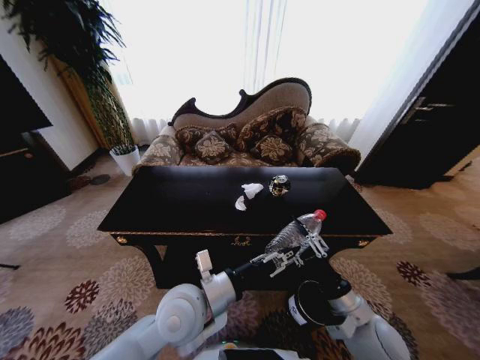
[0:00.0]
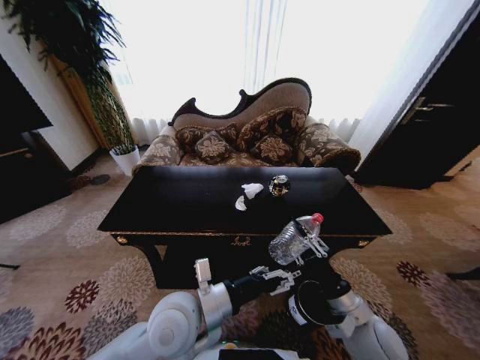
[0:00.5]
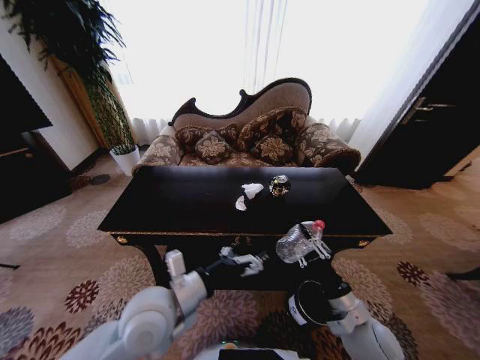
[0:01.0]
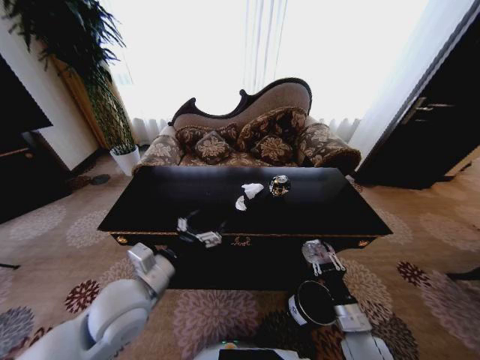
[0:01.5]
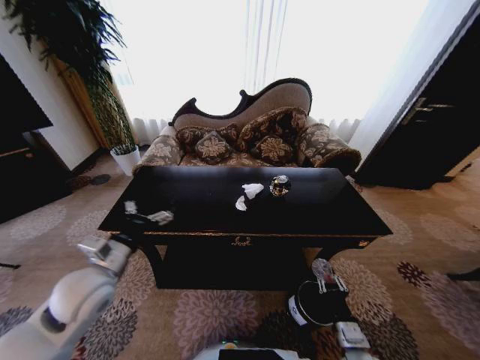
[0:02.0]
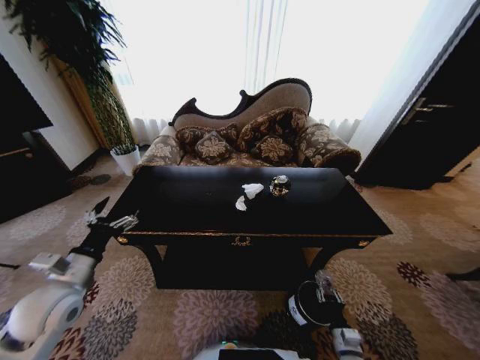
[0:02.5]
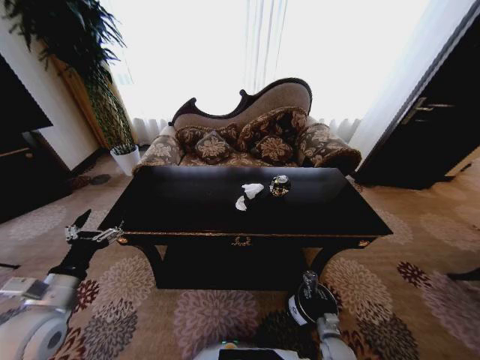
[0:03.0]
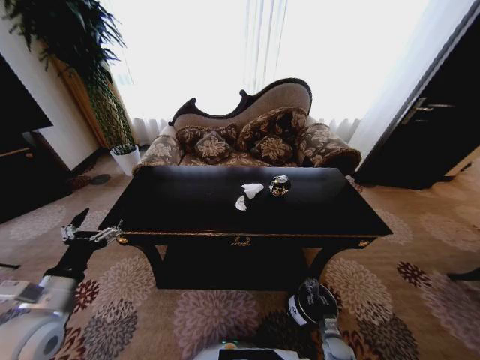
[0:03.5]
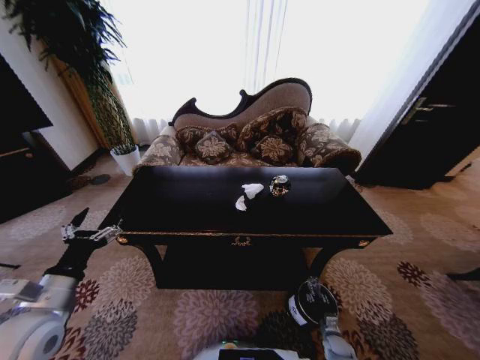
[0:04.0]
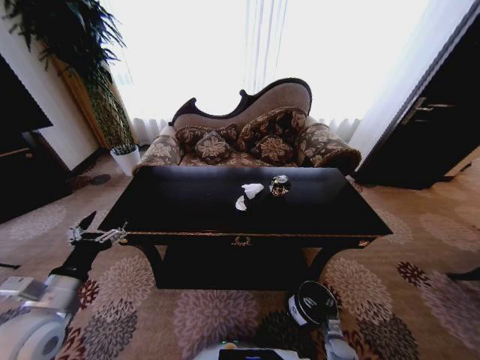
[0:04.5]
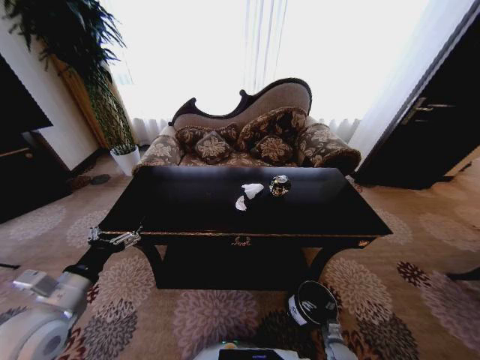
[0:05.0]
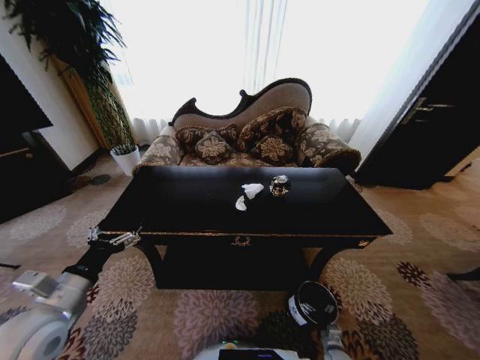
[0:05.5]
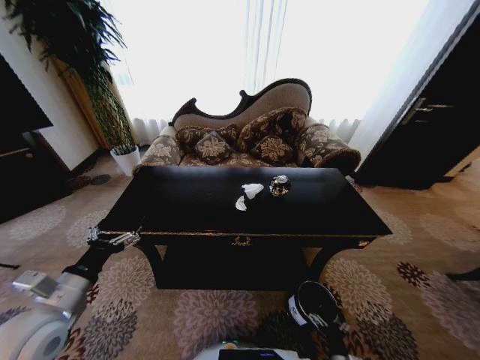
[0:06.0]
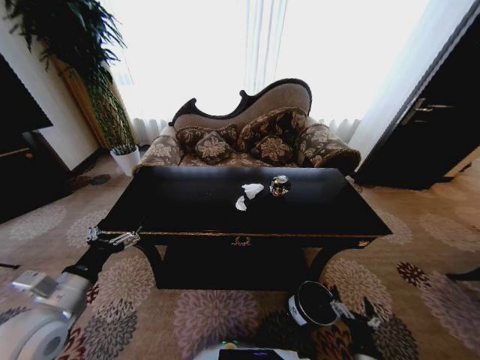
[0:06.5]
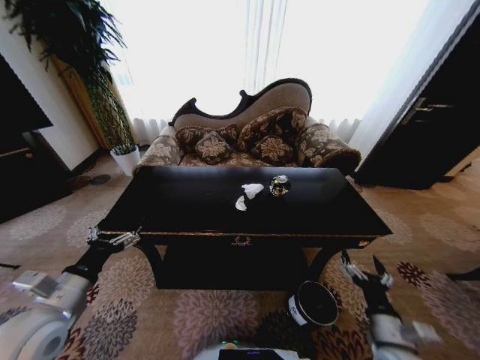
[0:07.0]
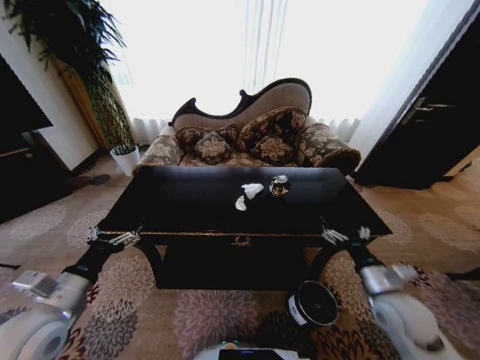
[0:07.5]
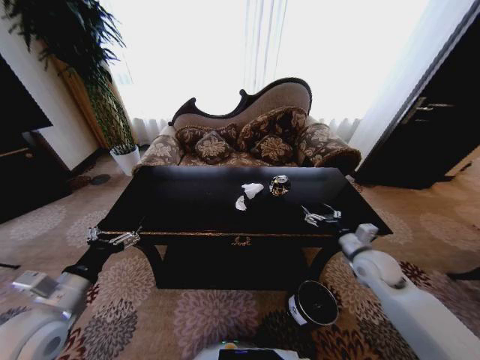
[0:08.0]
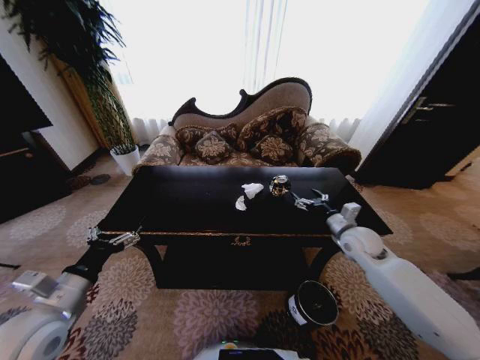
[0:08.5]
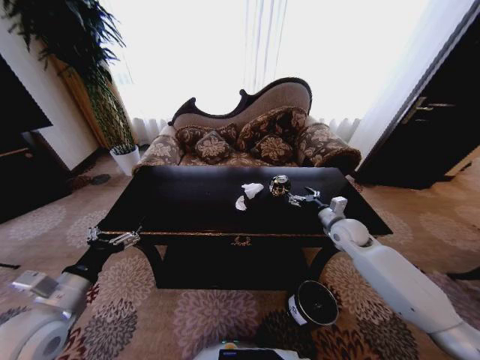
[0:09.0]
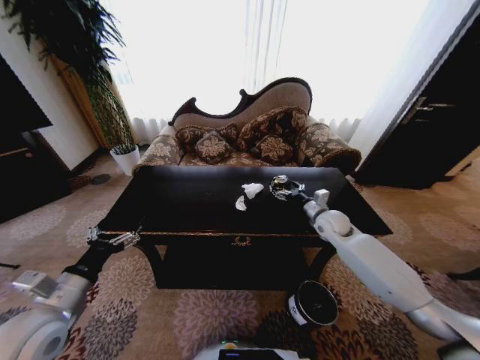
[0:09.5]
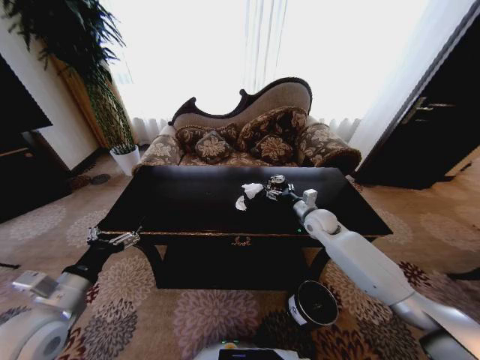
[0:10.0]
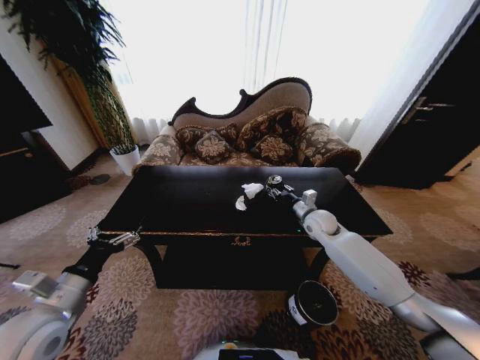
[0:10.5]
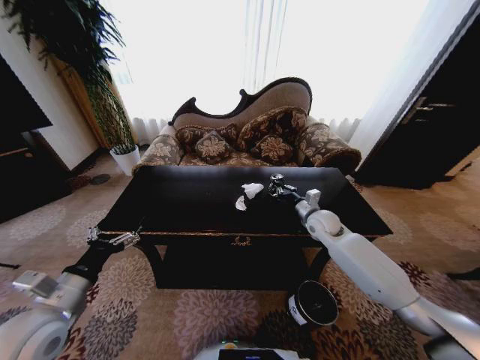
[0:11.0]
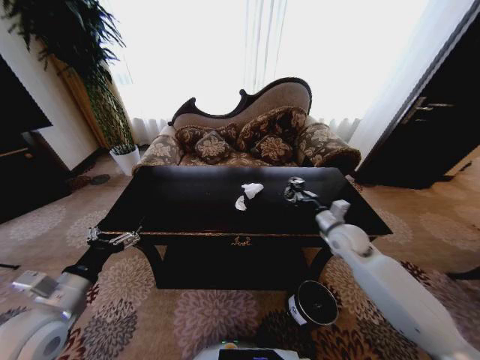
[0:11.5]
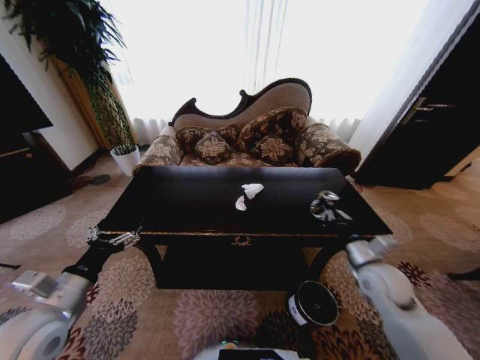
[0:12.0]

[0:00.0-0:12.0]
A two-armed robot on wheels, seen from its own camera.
Task of the whole recording: Move to the front of the table and place the trash on the table into the trash bin.
0:00.0 to 0:02.0: The right gripper goes approximately 15 cm downward; the left gripper heads to the left, covering some 20 cm, and opens its fingers.
0:02.0 to 0:04.0: The left gripper heads to the left and backward, covering some 10 cm. Meanwhile the right gripper goes about 20 cm downward.
0:04.0 to 0:06.0: The right gripper travels backward, upward and to the left by about 15 cm, and opens its fingers.
0:06.0 to 0:08.0: The right gripper shifts some 40 cm upward and forward.
0:08.0 to 0:10.0: The right gripper moves forward and to the left, roughly 20 cm.
0:10.0 to 0:12.0: The right gripper travels backward by about 20 cm, and closes its fingers.

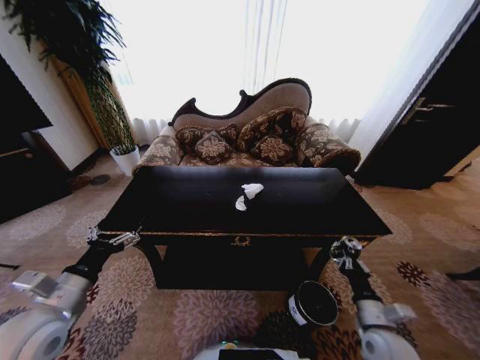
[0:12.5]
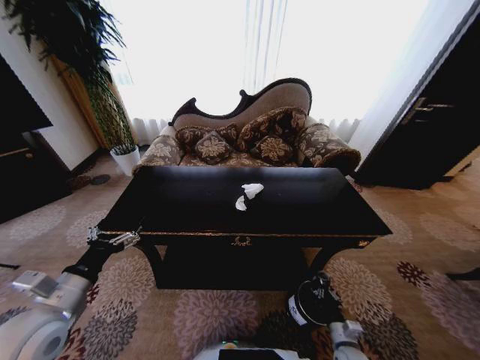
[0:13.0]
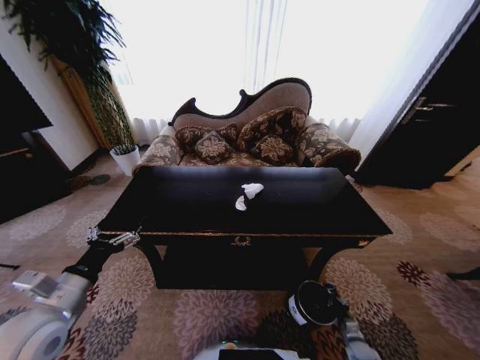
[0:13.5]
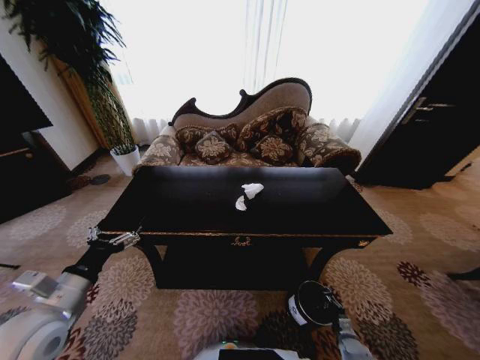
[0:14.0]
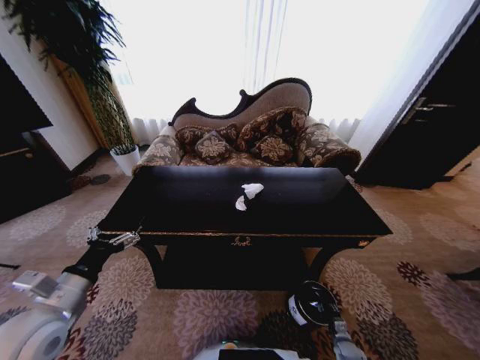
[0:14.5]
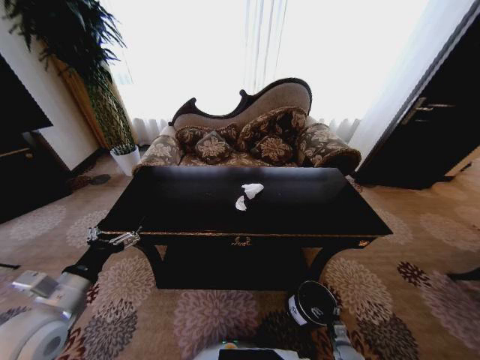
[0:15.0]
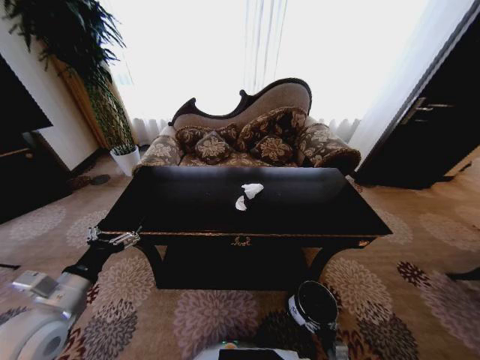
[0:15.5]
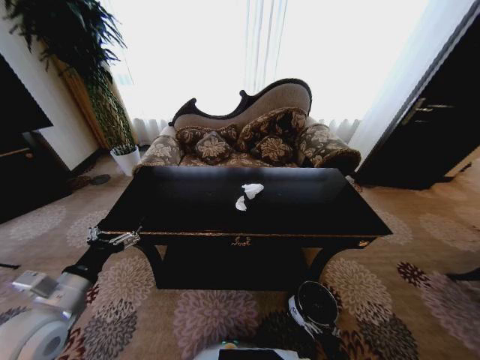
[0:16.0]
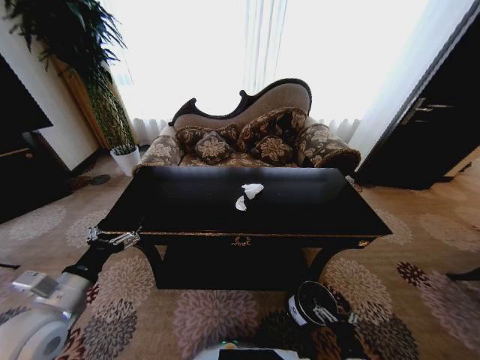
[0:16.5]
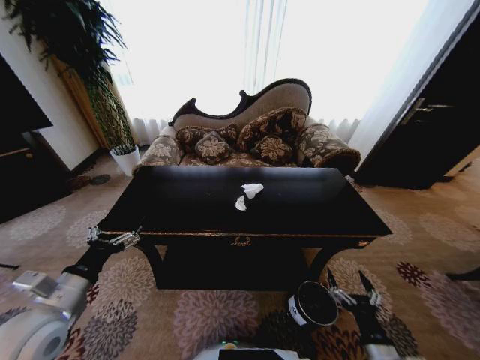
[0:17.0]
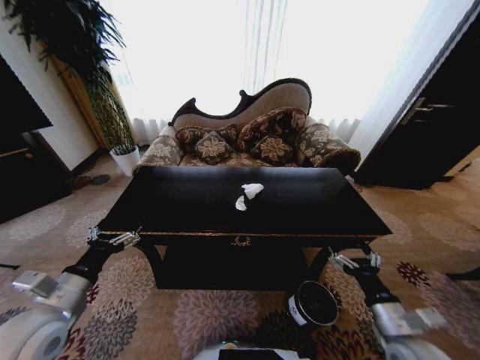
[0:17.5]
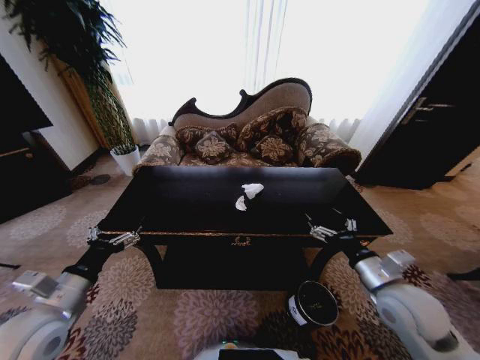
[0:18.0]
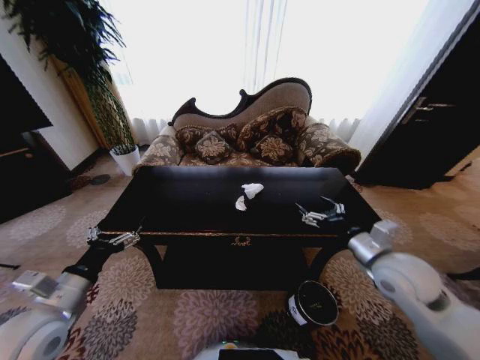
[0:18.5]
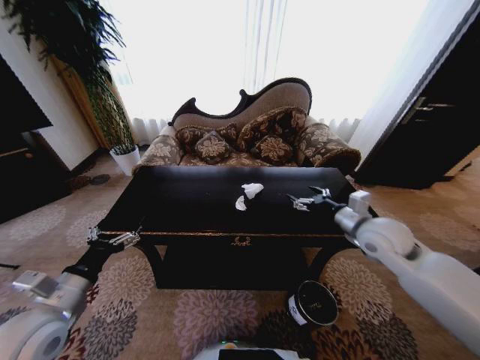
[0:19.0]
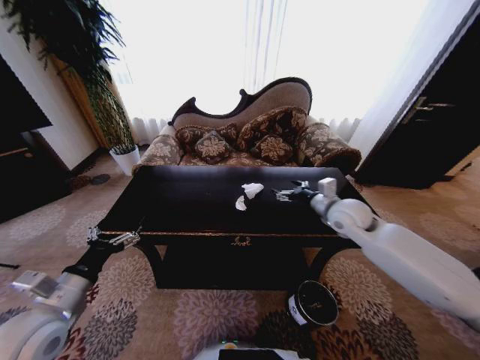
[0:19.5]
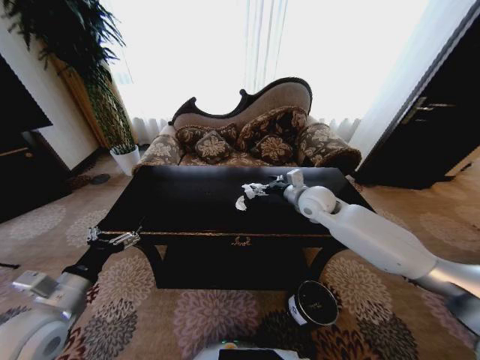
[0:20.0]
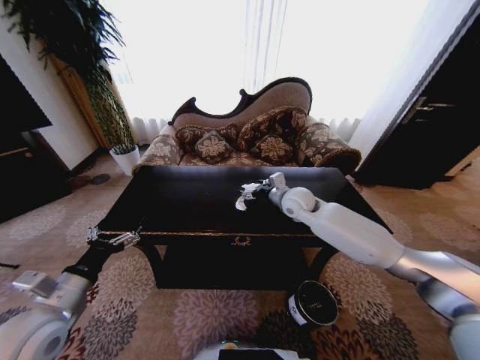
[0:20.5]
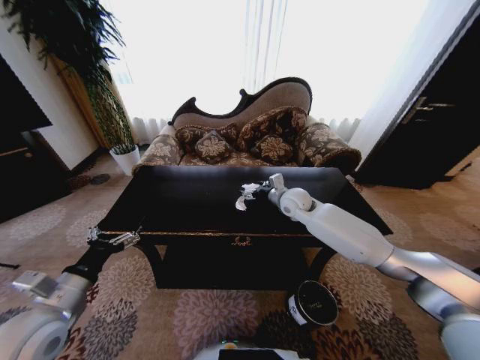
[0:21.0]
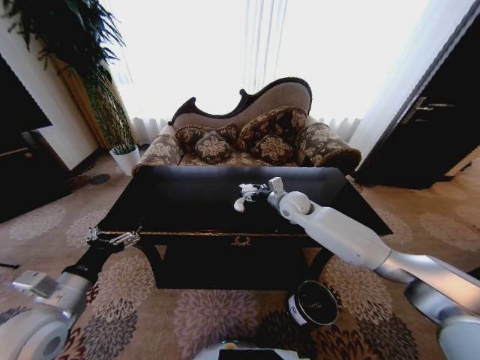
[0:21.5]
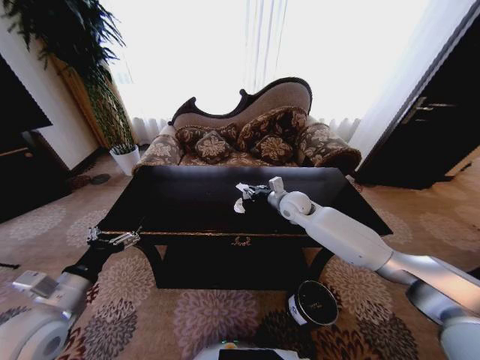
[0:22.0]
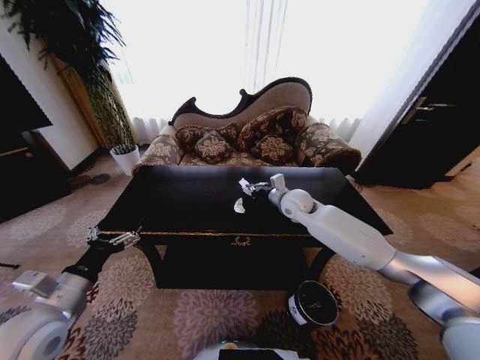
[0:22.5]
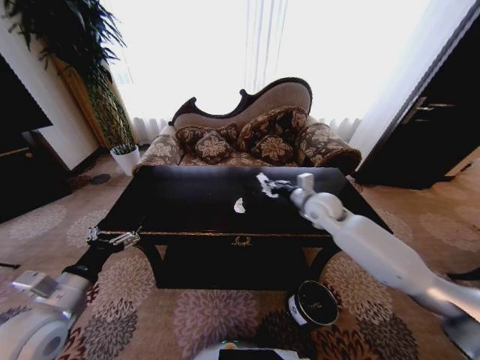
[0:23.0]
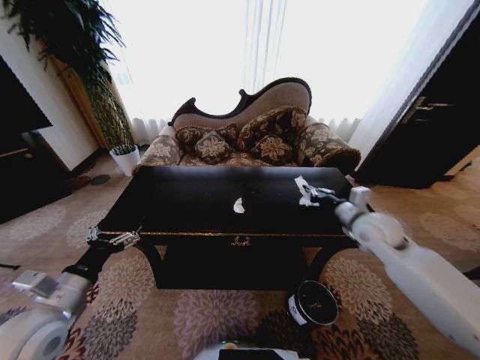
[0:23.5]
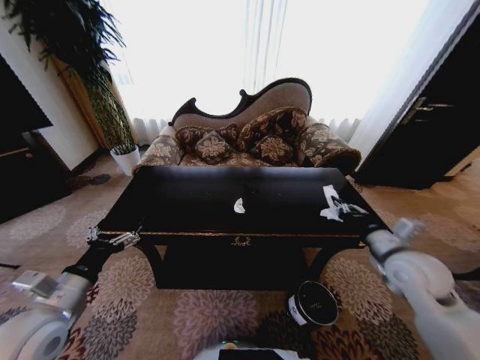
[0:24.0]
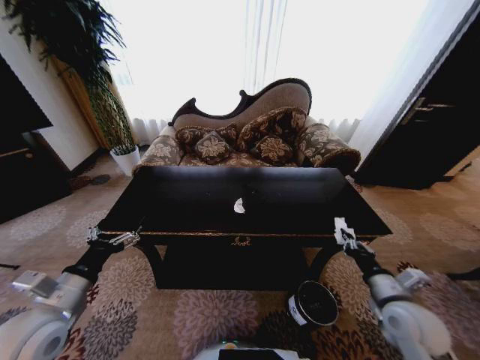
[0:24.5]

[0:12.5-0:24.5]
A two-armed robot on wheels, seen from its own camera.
Task of the whole recording: Move to the front of the table and place the trash on the table into the trash bin.
0:12.5 to 0:14.5: The right gripper travels downward by roughly 30 cm.
0:14.5 to 0:16.5: The right gripper goes approximately 25 cm upward, backward and to the left, and opens its fingers.
0:16.5 to 0:18.5: The right gripper shifts roughly 35 cm upward and forward.
0:18.5 to 0:20.5: The right gripper moves forward and to the left, roughly 25 cm.
0:20.5 to 0:22.5: The right gripper closes up.
0:22.5 to 0:24.5: The right gripper is displaced backward and to the right by some 35 cm.

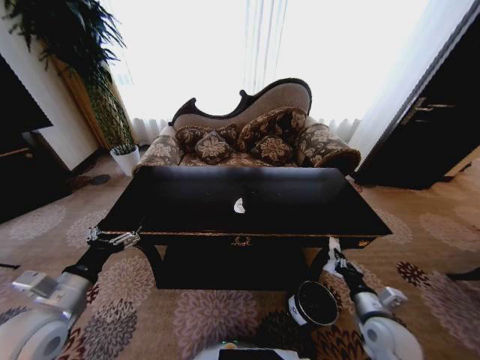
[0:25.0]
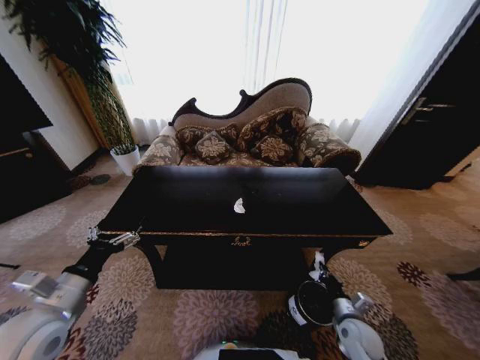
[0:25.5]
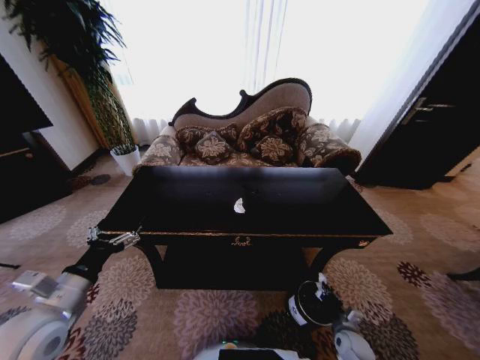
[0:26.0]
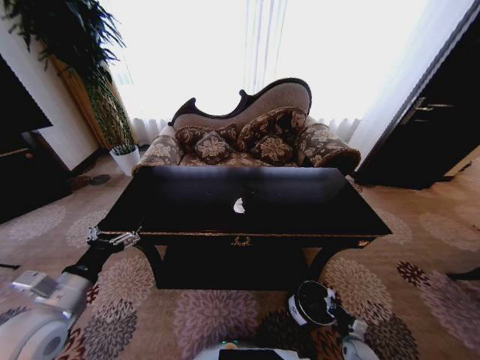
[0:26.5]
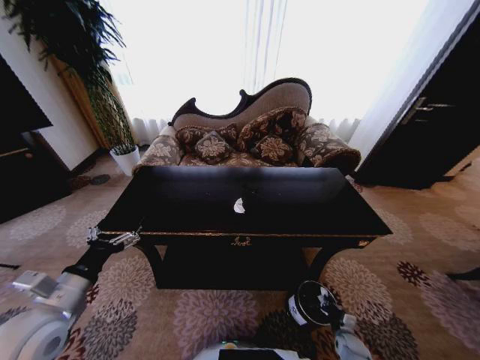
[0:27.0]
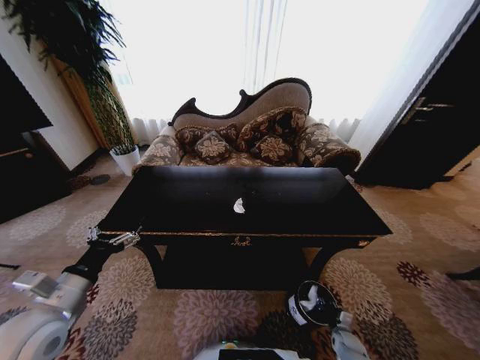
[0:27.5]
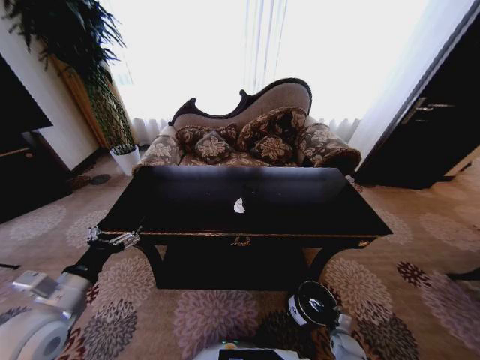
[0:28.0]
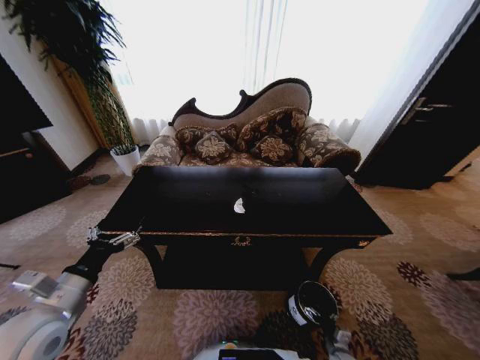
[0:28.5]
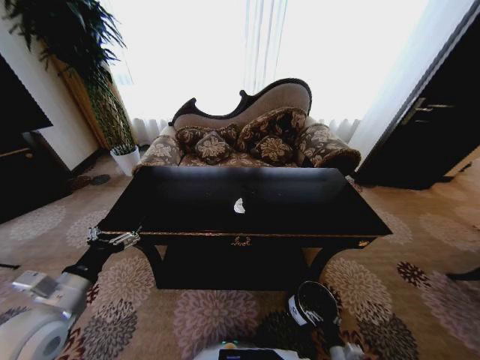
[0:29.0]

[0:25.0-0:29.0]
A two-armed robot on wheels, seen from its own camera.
Task of the whole recording: Move to the front of the table and place the trash on the table into the trash bin.
0:25.0 to 0:27.0: The right gripper shifts about 30 cm downward.
0:27.0 to 0:29.0: The right gripper moves backward, to the left and upward, approximately 15 cm, and opens its fingers.
